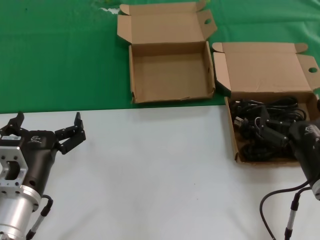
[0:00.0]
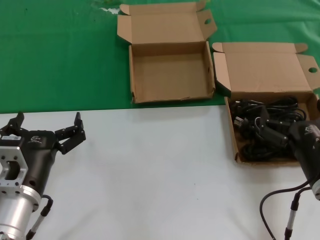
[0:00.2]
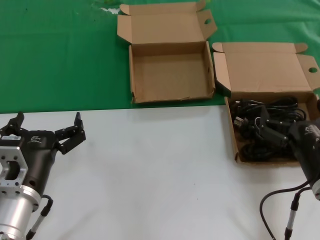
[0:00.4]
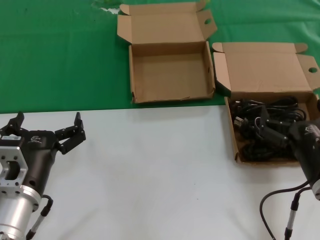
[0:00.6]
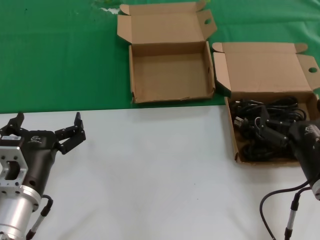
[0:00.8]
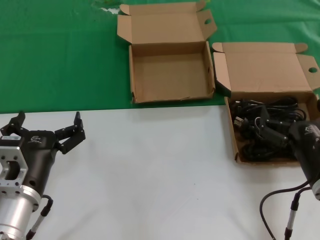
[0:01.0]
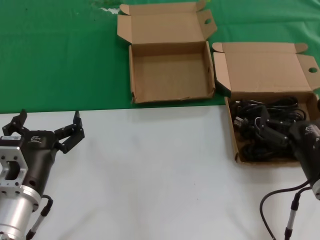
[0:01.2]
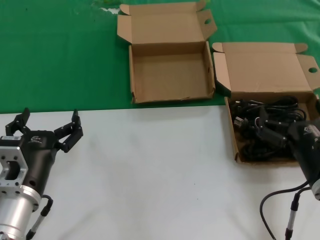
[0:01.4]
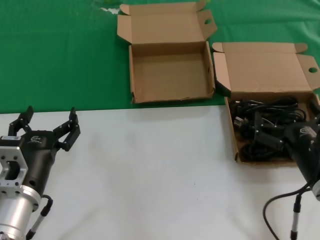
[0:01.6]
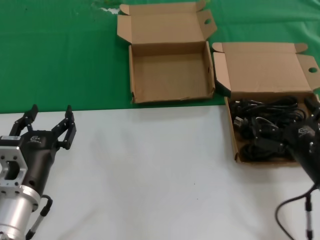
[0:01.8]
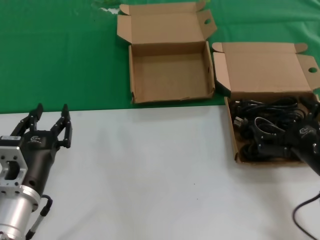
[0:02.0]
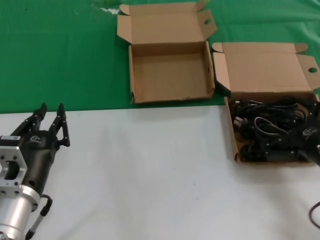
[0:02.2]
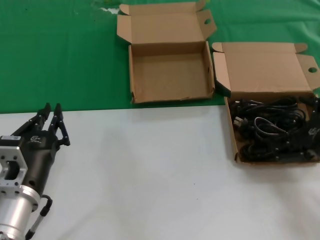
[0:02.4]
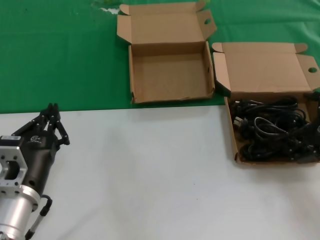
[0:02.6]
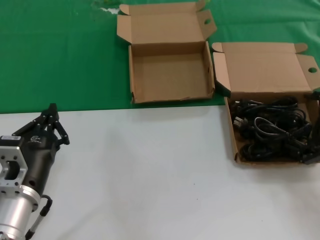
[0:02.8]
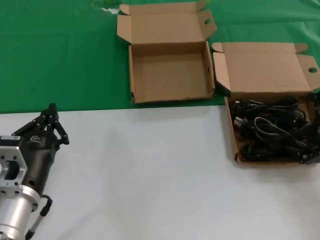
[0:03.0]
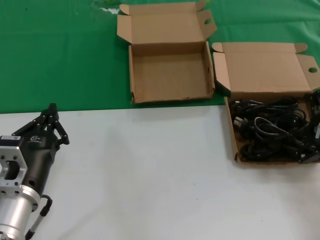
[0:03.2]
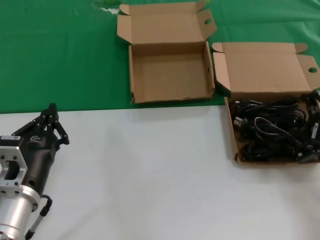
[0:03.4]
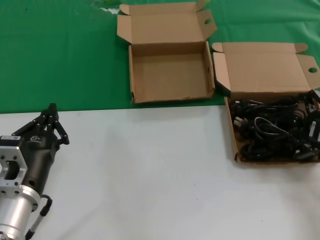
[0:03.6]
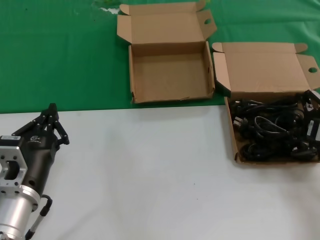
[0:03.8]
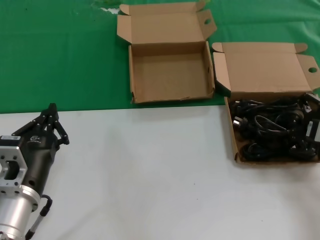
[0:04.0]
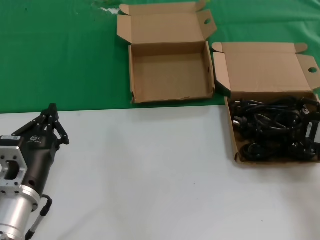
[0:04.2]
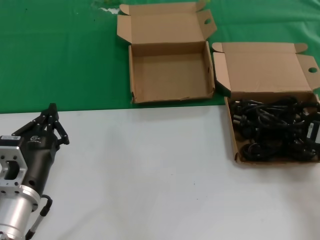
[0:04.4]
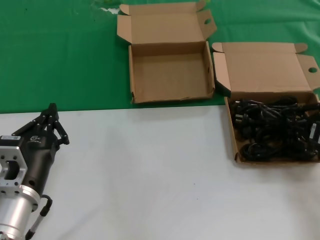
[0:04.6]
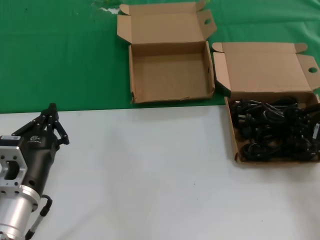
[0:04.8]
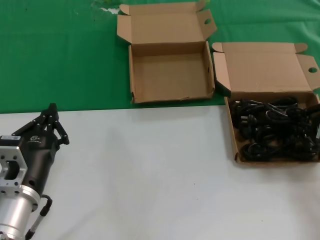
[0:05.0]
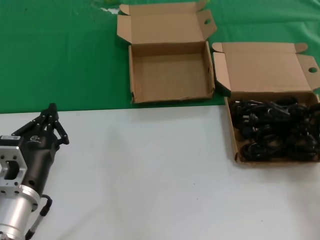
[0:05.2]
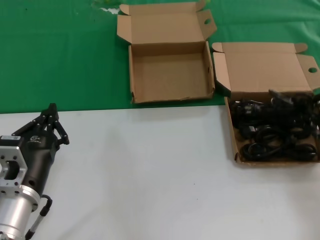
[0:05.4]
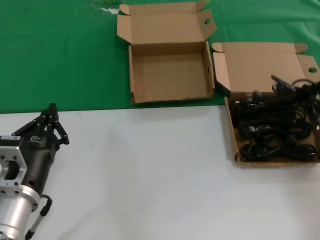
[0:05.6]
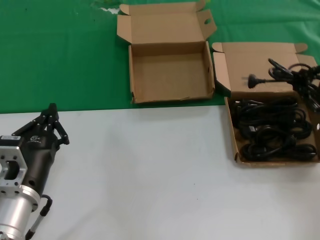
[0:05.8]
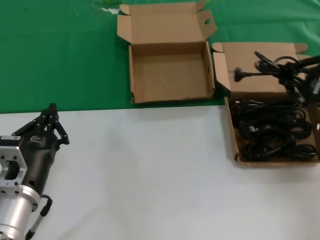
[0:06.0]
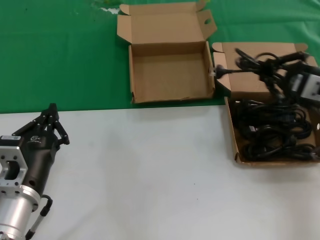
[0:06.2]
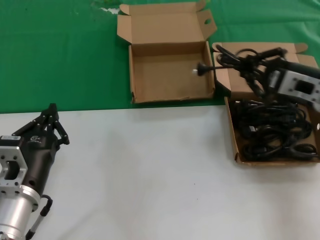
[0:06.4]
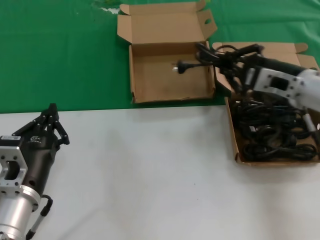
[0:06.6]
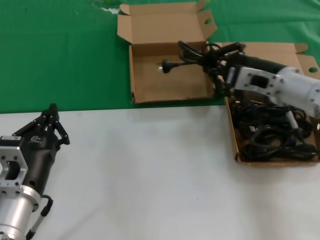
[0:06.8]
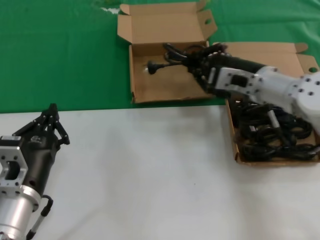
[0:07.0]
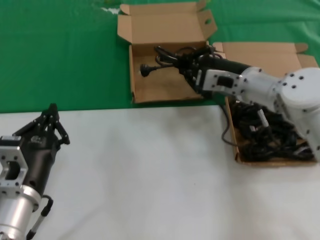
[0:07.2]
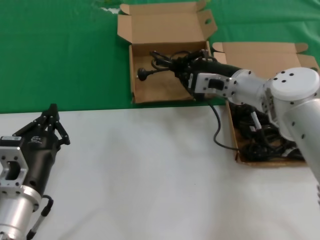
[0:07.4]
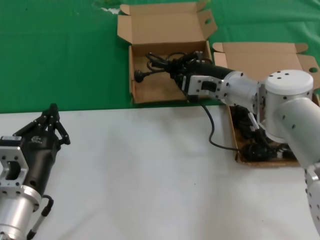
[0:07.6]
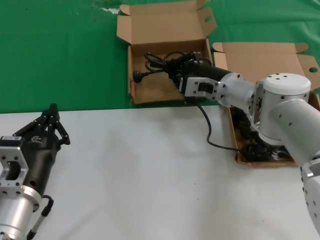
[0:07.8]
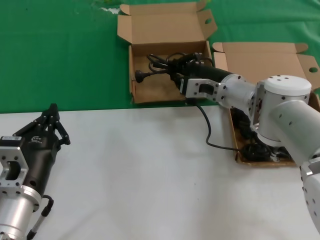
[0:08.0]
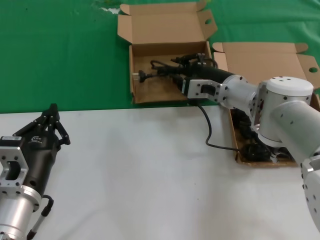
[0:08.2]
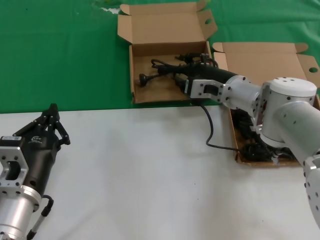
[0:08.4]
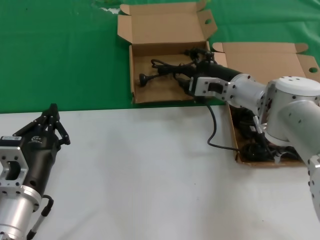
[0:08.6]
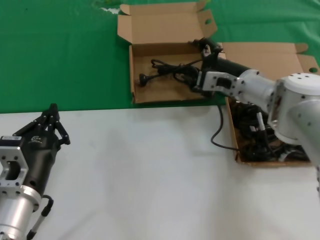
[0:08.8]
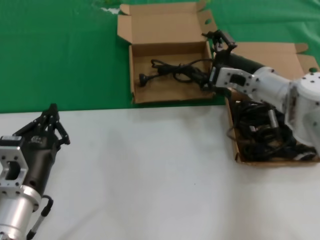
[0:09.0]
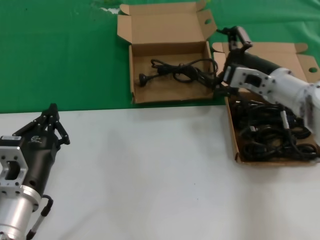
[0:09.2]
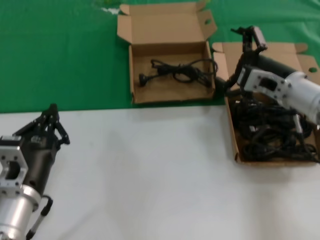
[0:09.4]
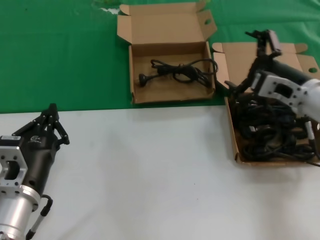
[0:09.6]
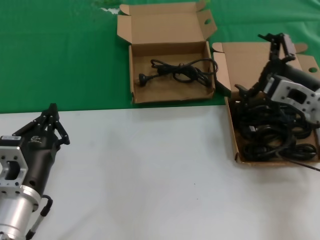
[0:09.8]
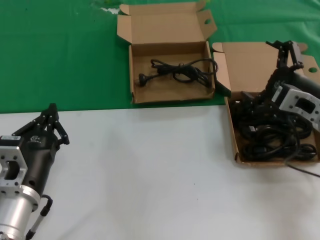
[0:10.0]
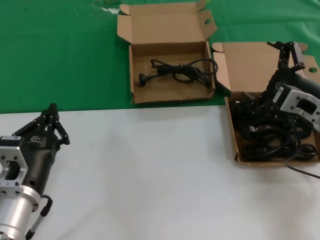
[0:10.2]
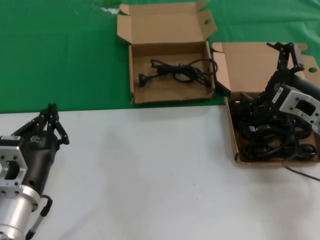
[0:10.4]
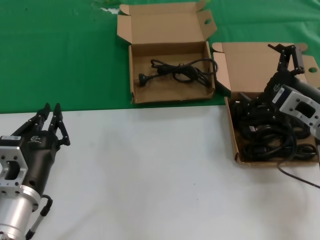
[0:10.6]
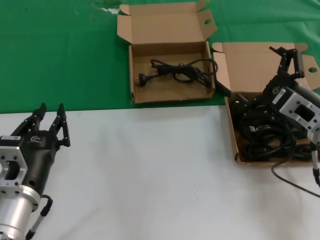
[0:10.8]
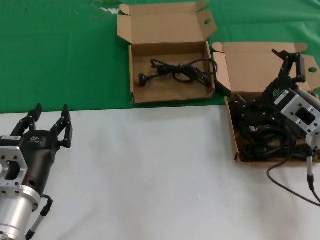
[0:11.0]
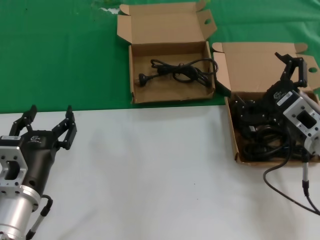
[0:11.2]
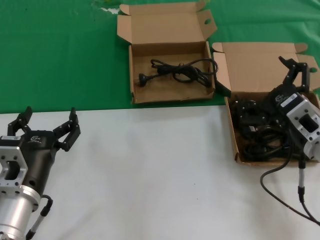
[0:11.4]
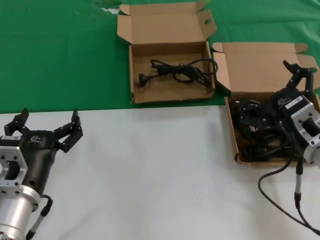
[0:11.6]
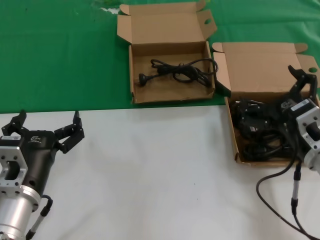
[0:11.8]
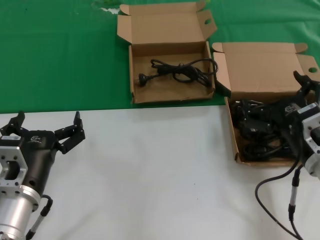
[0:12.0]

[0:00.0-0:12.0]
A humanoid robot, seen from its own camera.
Task of the whole recording: take the parts from the box containing them and put them into an empty box.
Step, 0:00.0 to 0:04.6: Grasp the data cable.
Step, 0:04.8 to 0:08.2: Place the data cable in the another box.
0:00.0 to 0:01.6: The two hands keep their place.
0:01.6 to 0:03.0: The right hand moves to the right, upward and forward, about 15 cm.
0:04.4 to 0:06.0: The right hand is displaced upward by some 10 cm.
0:06.0 to 0:07.6: The right hand goes about 25 cm to the left and forward.
0:07.6 to 0:09.0: The right hand shifts by approximately 5 cm.
0:09.0 to 0:10.4: The right hand is displaced backward and to the right by some 15 cm.
0:10.4 to 0:12.0: The right hand travels backward and downward by approximately 10 cm.

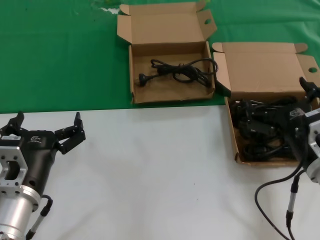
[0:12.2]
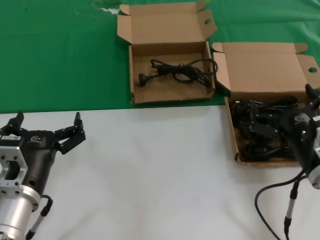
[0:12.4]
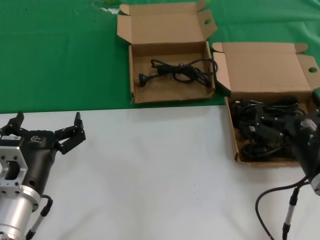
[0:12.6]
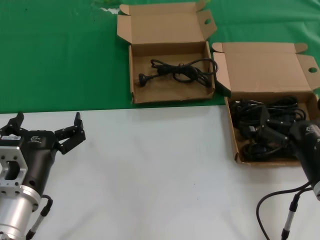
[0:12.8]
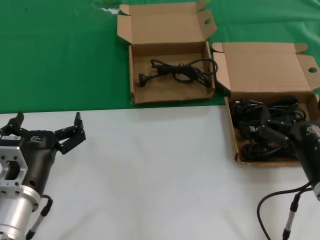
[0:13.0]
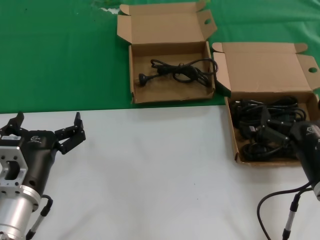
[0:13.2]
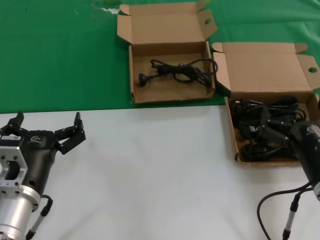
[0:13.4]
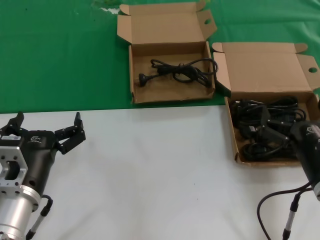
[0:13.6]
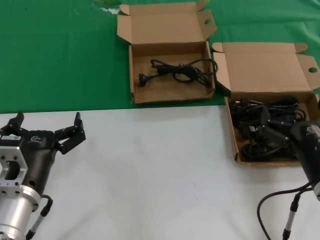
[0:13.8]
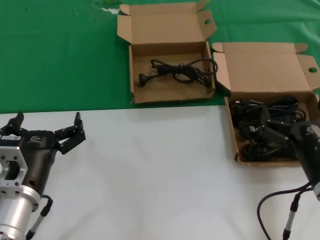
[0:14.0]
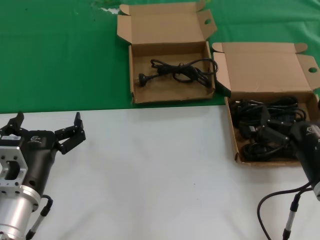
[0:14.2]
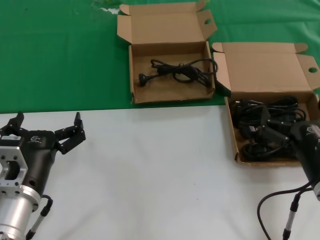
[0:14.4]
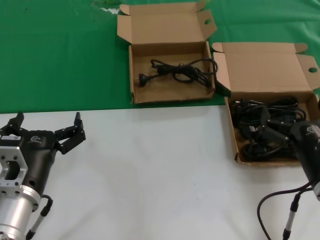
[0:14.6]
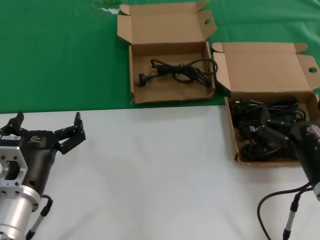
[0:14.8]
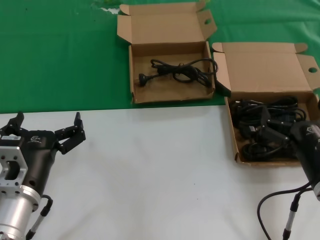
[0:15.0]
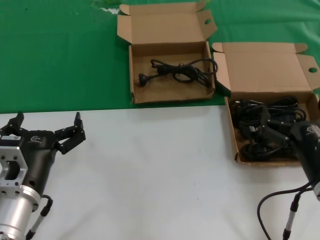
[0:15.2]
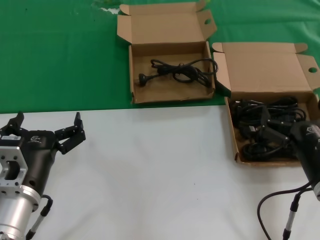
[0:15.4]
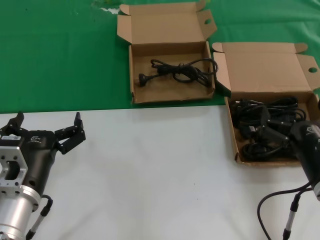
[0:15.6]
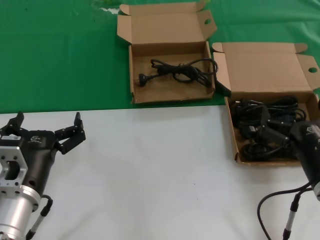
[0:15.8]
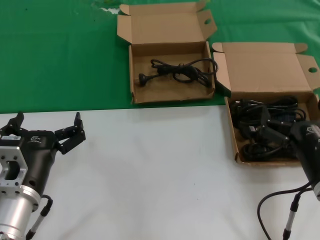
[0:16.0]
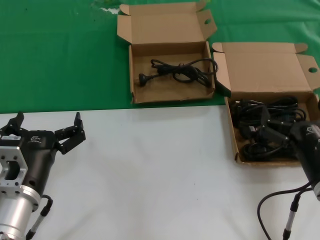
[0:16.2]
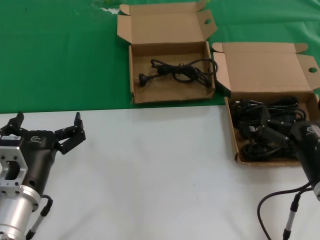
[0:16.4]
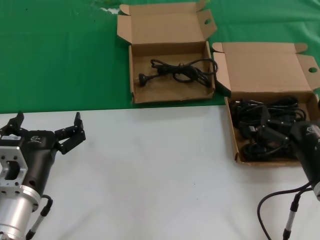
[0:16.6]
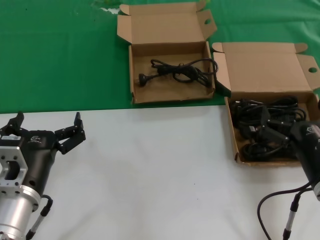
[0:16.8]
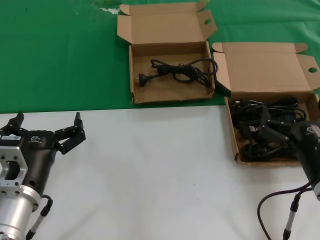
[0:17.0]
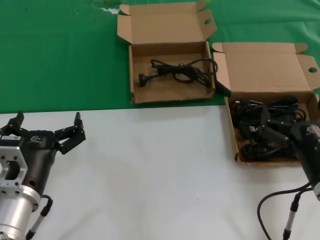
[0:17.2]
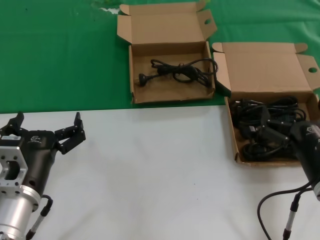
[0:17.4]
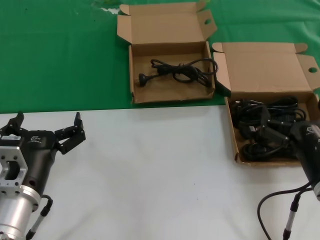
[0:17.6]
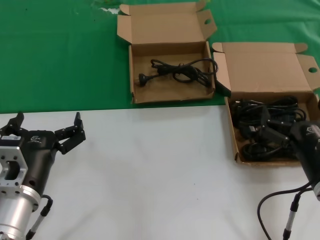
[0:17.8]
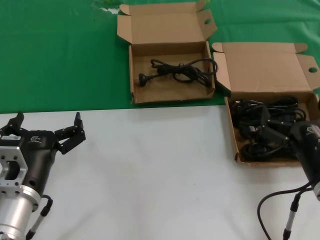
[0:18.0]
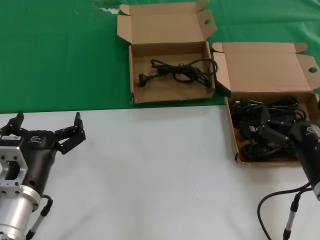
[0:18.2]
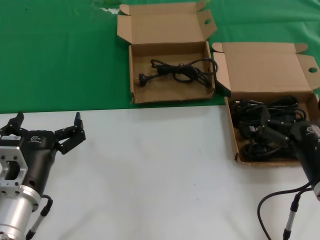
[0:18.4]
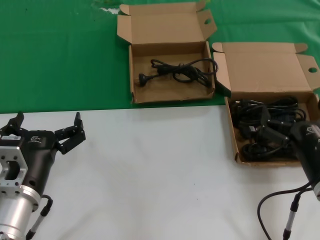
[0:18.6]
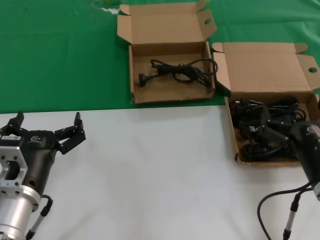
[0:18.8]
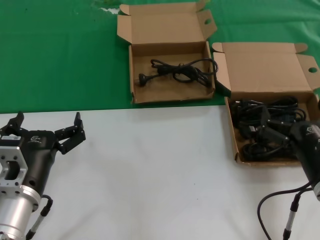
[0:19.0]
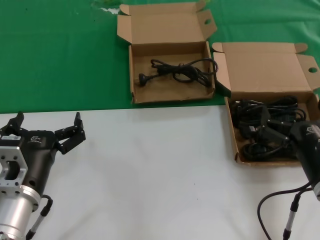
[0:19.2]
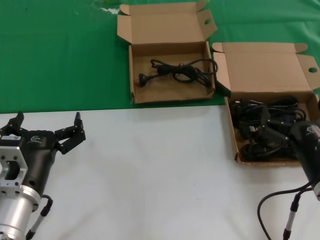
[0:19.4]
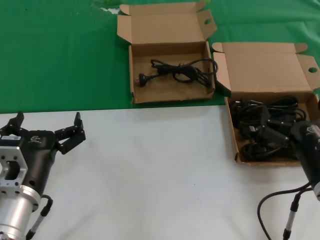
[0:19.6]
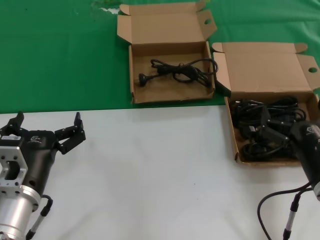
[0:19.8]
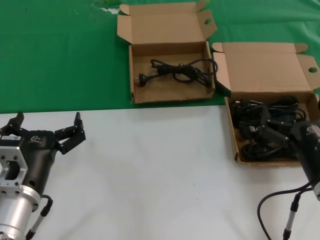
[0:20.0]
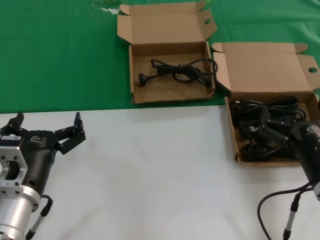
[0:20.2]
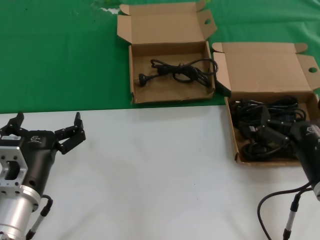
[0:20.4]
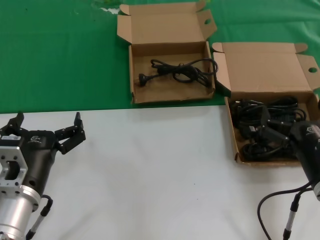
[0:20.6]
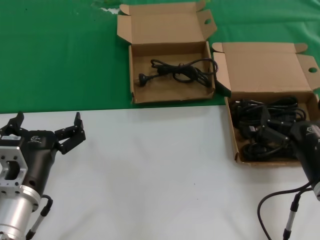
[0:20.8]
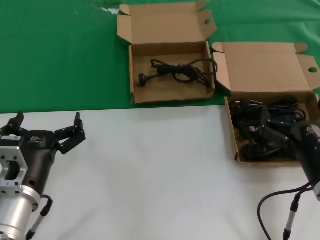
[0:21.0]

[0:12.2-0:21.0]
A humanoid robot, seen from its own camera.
Task of the whole recording: take the parts from the box containing them and put them into an empty box.
0:12.2 to 0:13.6: The hands stay close to where they were, moving slightly.
0:13.6 to 0:21.0: Neither hand changes place.

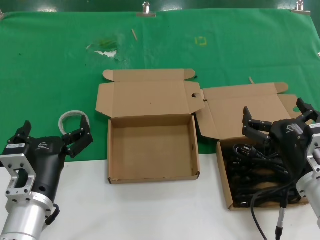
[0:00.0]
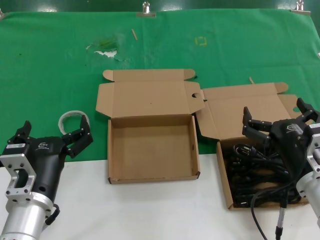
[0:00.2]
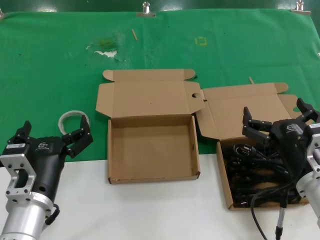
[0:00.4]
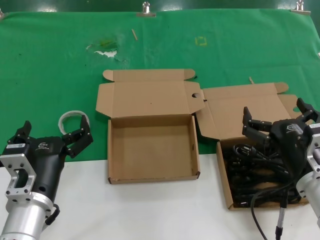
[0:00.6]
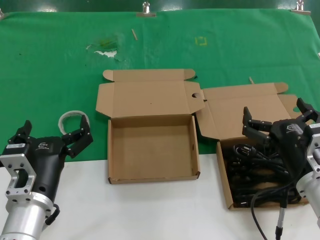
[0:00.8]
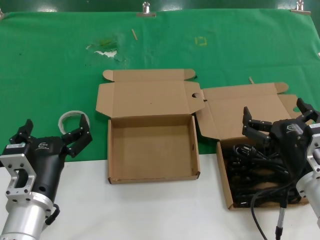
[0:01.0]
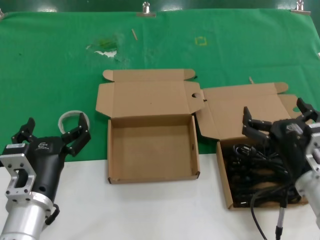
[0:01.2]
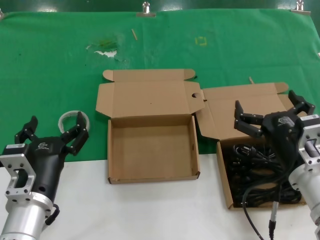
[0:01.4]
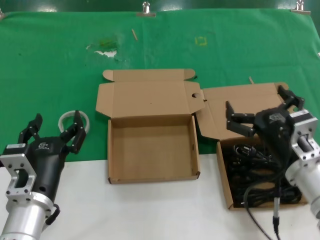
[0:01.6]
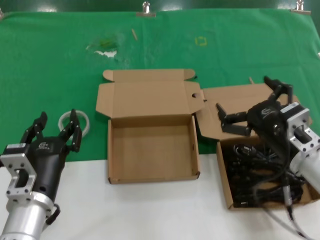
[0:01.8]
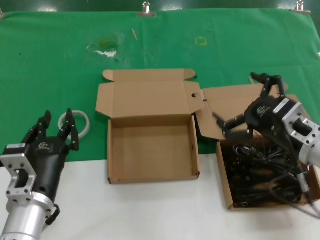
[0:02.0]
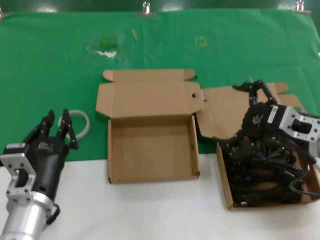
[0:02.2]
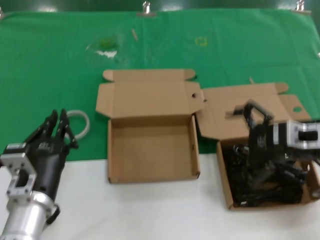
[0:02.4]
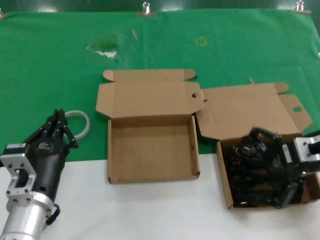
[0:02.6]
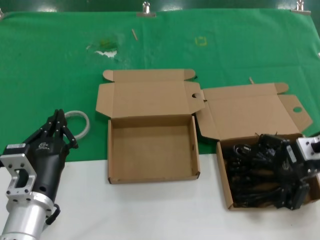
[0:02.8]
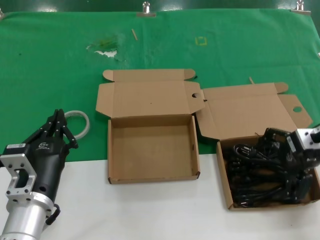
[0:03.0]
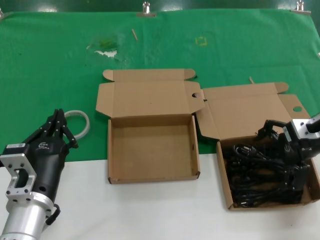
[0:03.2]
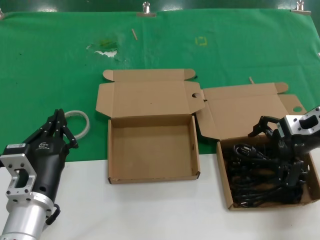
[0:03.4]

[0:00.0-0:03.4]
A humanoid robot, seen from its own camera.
Task of the whole recording: take the parts from the box containing them and put them into an empty box.
0:00.0 to 0:01.6: The hands stay close to where they were, moving slightly.
0:01.6 to 0:03.4: The right hand shifts roughly 20 cm forward, upward and to the right.
